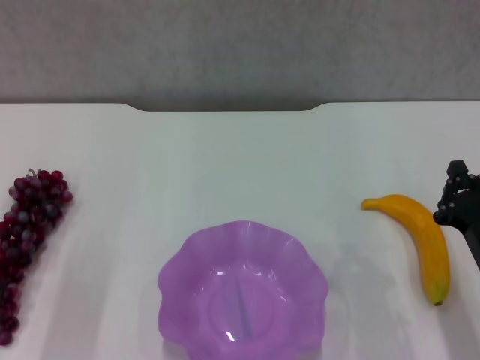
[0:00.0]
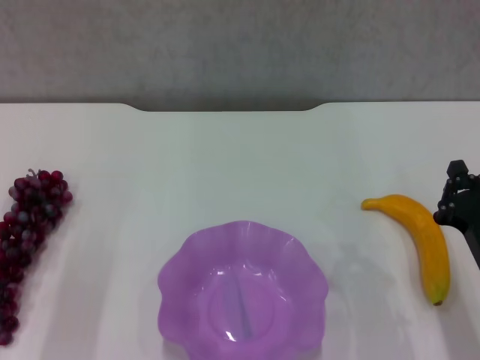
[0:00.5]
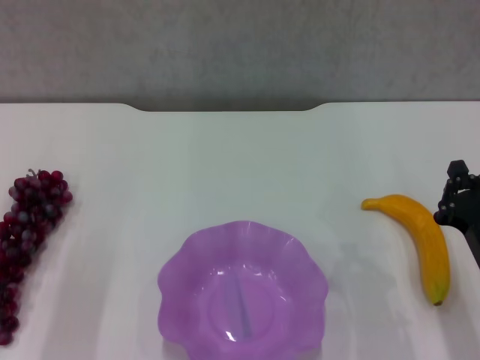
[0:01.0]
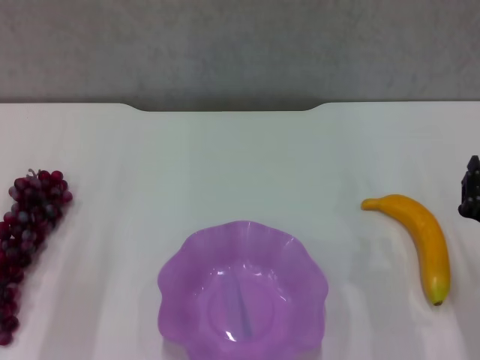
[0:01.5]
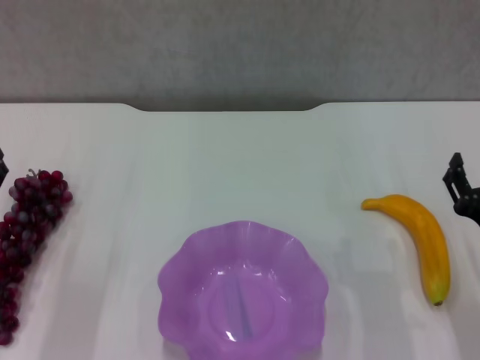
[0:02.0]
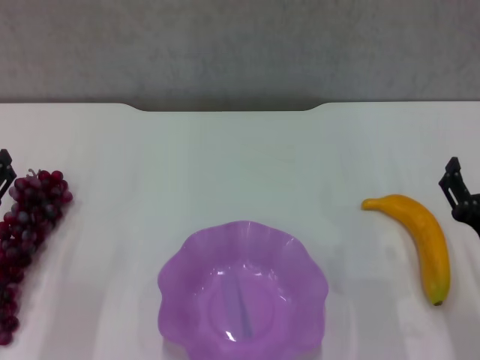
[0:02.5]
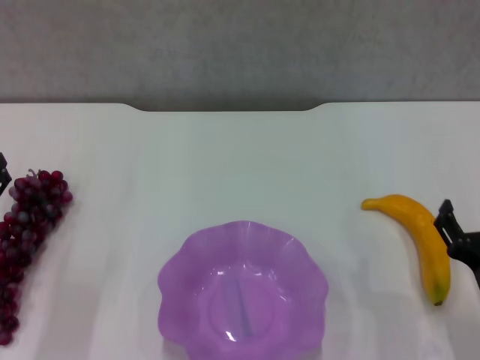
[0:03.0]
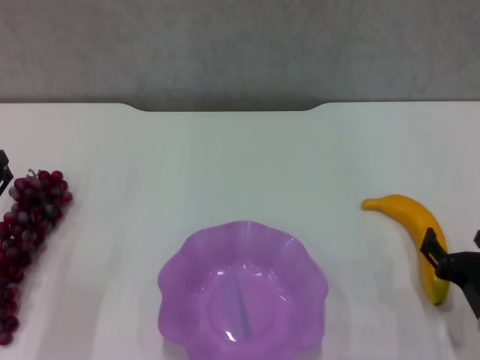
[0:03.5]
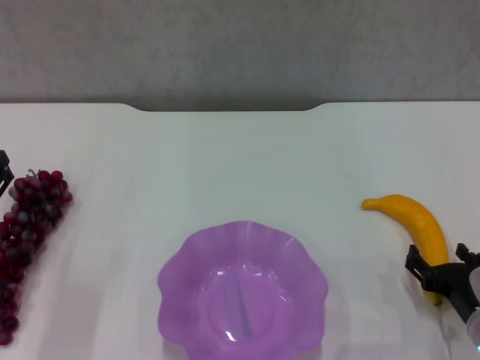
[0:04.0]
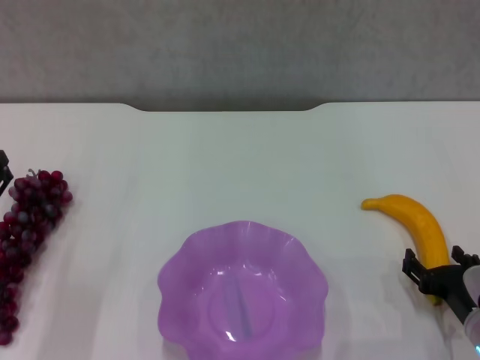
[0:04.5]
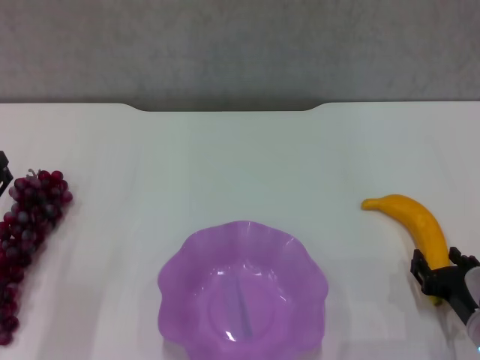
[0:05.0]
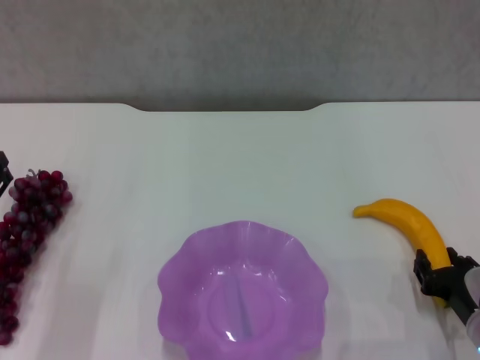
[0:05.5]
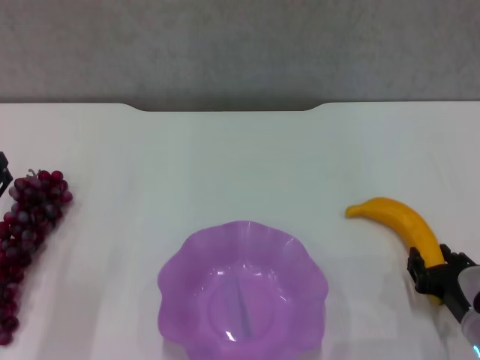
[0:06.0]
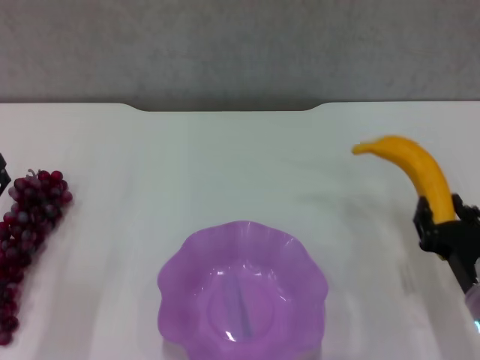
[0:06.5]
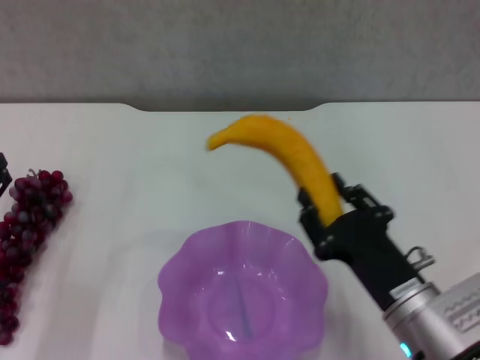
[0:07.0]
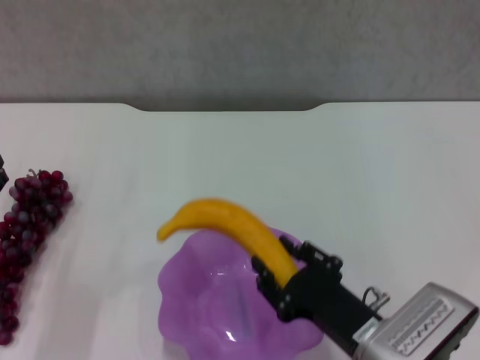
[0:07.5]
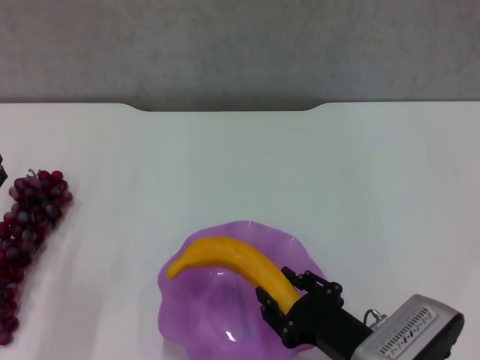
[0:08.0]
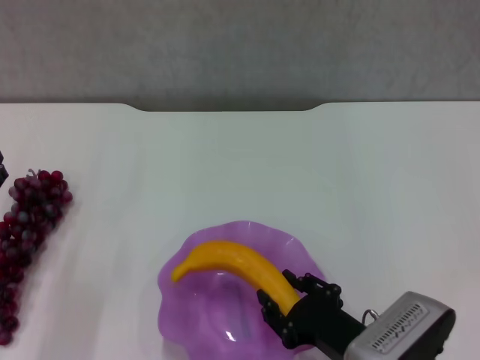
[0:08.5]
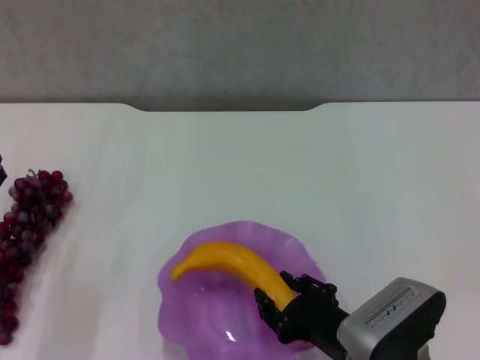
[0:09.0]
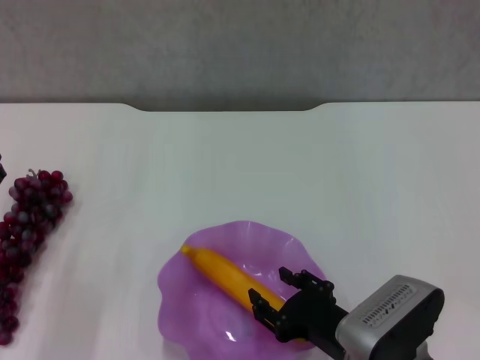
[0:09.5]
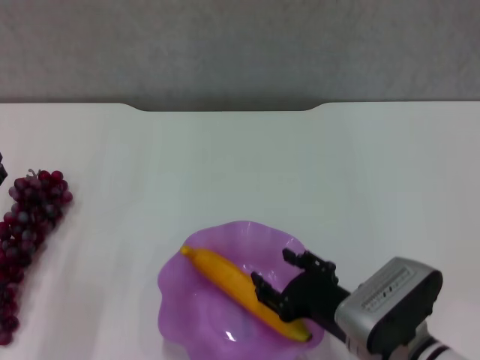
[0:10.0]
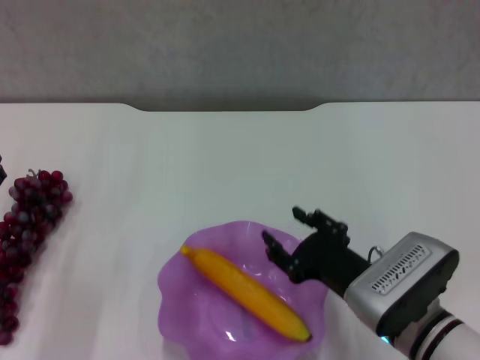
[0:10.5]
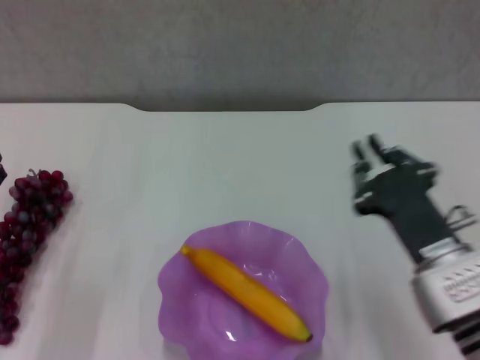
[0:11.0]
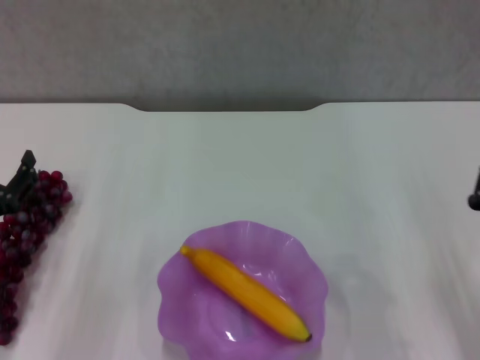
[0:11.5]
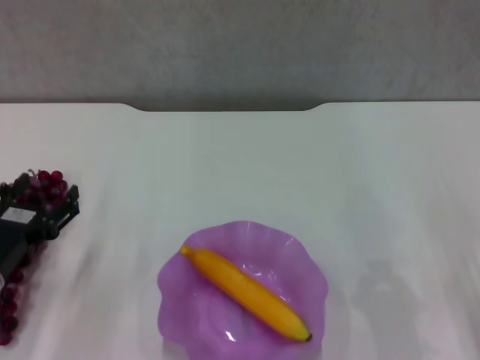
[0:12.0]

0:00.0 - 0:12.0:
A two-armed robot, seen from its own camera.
Step, 0:01.5 - 0:05.5: Grasp the banana with right gripper.
Step, 0:06.0 - 0:09.5: Place the banana in the purple plate with right gripper.
0:00.0 - 0:02.0: The right gripper opens up.
0:02.0 - 0:04.0: The right gripper shifts about 5 cm downward.
0:04.0 - 0:06.0: The right gripper closes its fingers.
0:06.0 - 0:08.0: The right gripper heads to the left, covering about 10 cm.
0:08.0 - 0:10.0: There are only small adjustments of the grippers.
0:10.0 - 0:12.0: The right gripper heads to the right, covering about 15 cm, and closes.

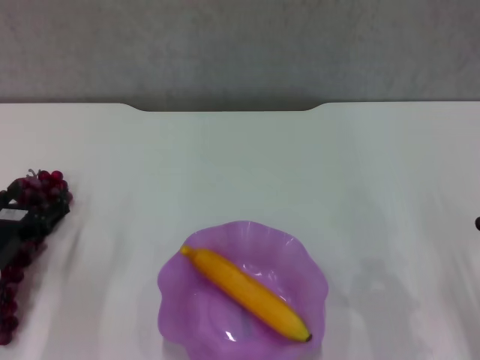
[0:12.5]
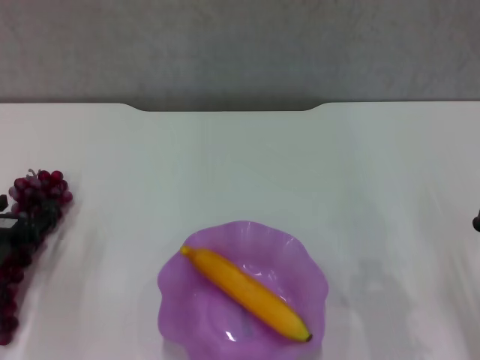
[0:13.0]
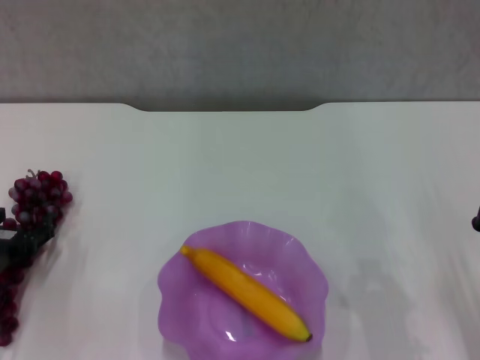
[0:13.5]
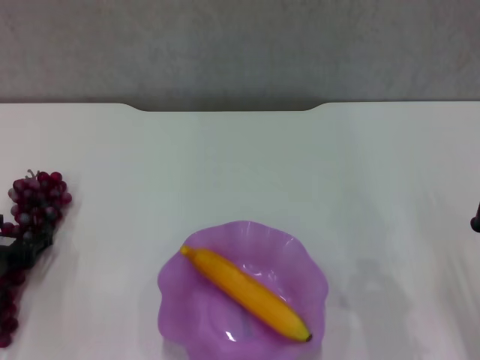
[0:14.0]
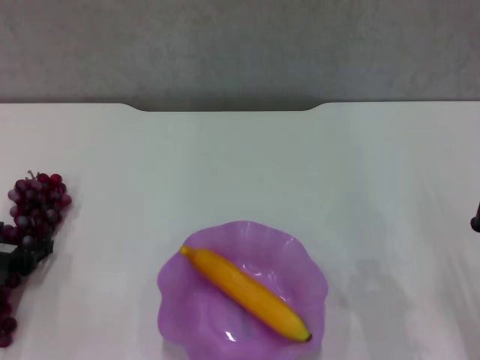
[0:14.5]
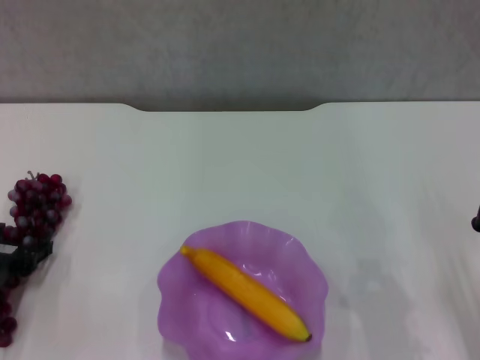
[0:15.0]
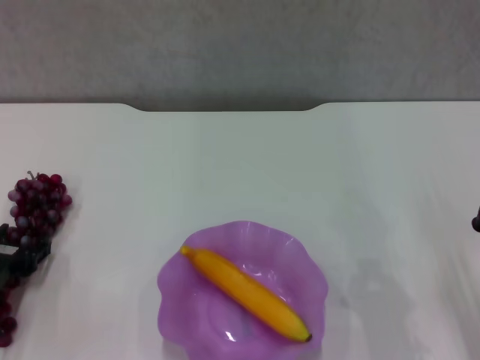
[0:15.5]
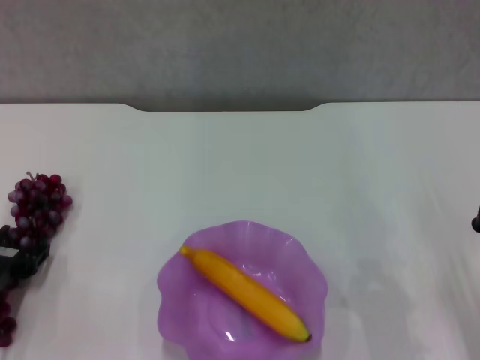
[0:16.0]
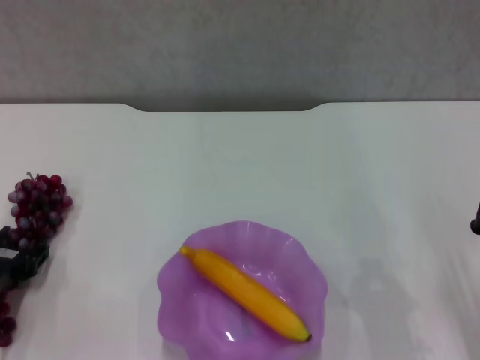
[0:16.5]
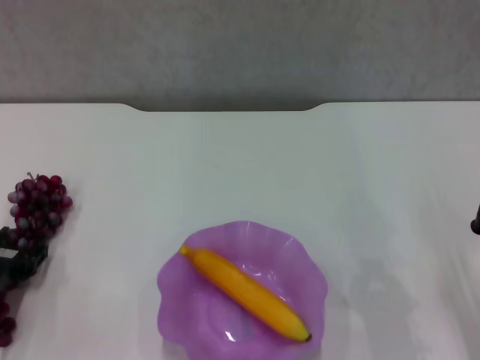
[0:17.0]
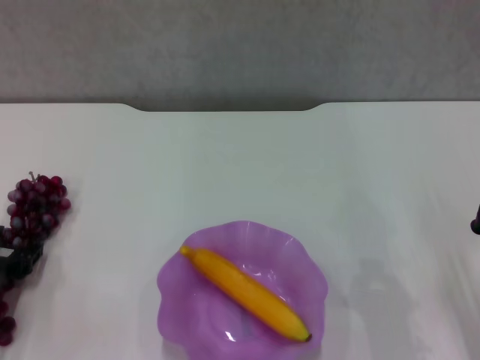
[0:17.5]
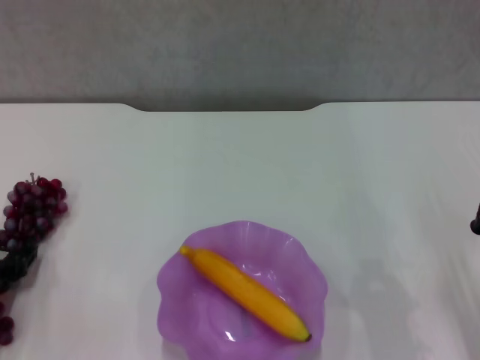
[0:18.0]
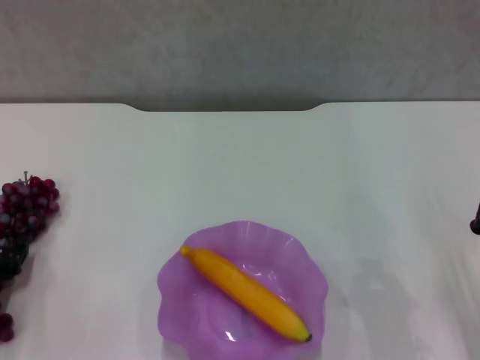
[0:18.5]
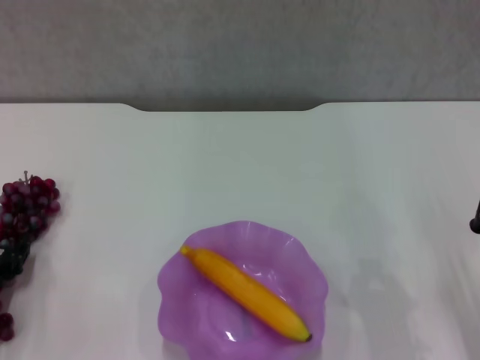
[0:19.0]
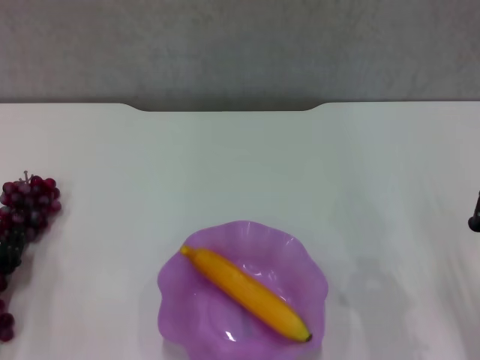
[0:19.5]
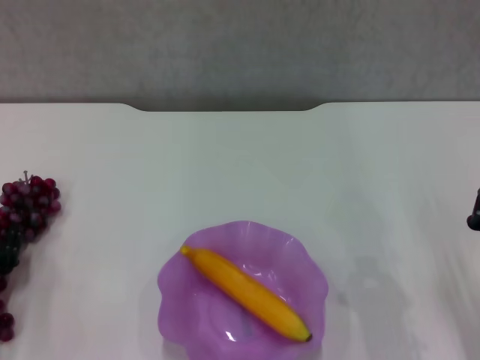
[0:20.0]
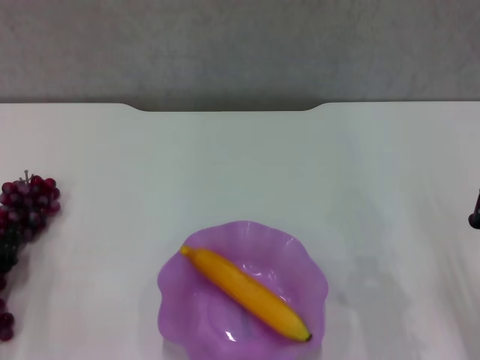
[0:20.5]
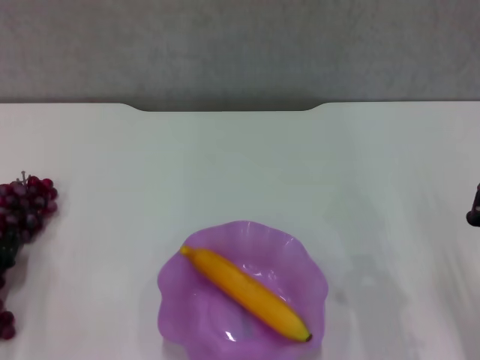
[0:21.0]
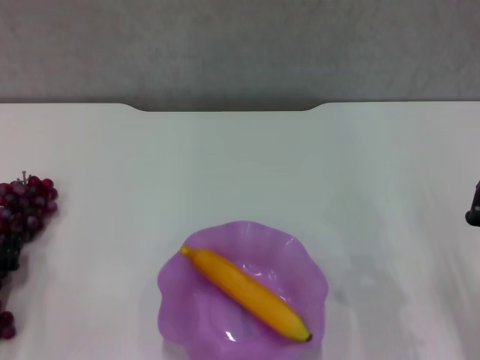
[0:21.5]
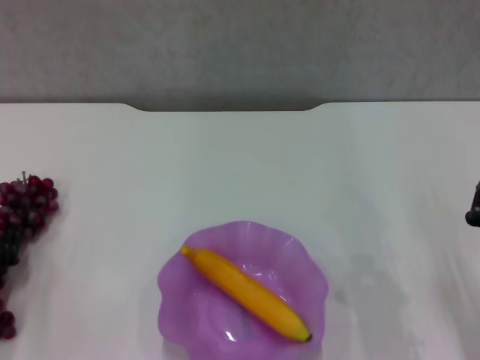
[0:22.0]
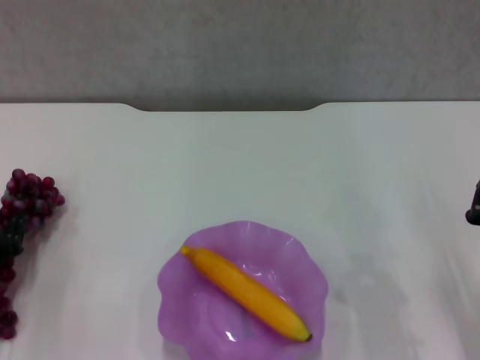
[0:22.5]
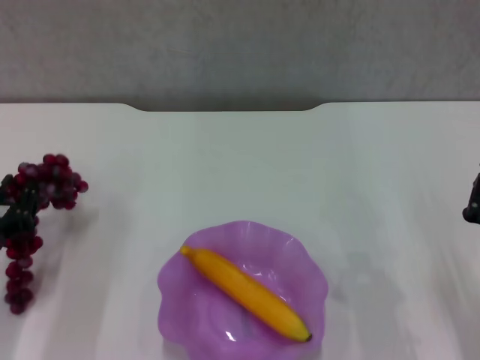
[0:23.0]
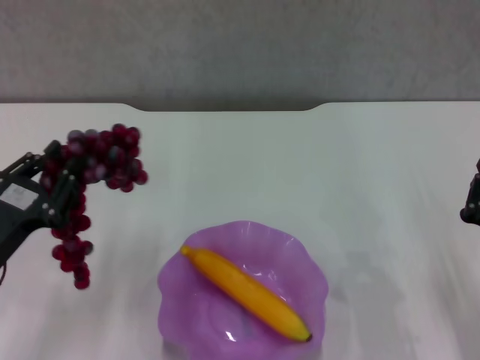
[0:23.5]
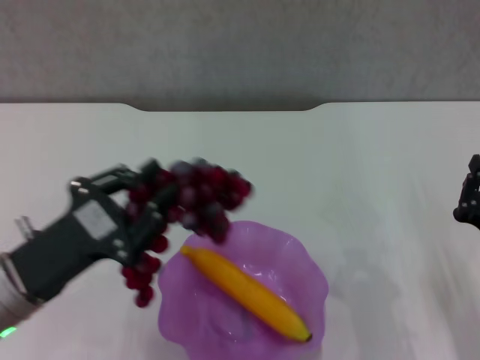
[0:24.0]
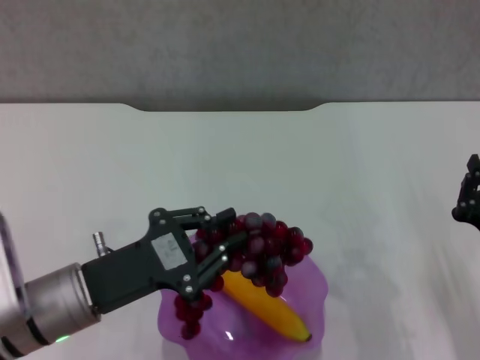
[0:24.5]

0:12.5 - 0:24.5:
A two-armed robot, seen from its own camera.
Step, 0:12.5 - 0:16.5: Grasp the grape with left gripper.
0:12.5 - 0:14.5: There are only small adjustments of the grippers.
0:14.5 - 0:16.5: Neither gripper changes place.
0:16.5 - 0:18.5: The grippers move only a little.
0:18.5 - 0:20.5: Neither gripper changes place.
0:20.5 - 0:22.5: The grippers stay close to where they were, moving slightly.
0:22.5 - 0:24.5: The left gripper goes some 15 cm to the right and upward.

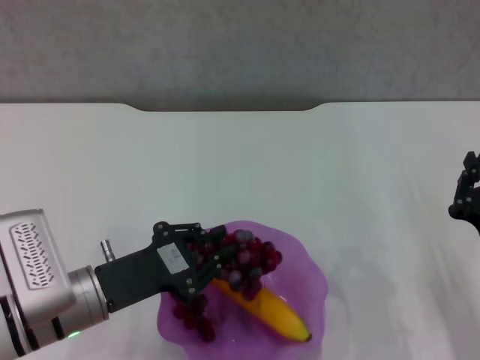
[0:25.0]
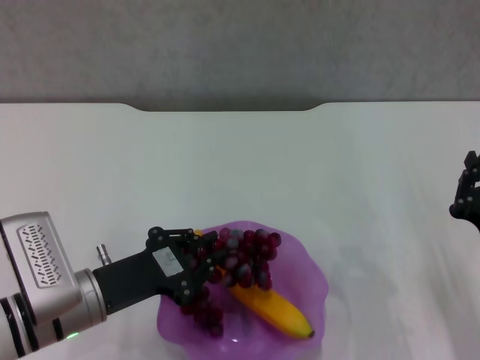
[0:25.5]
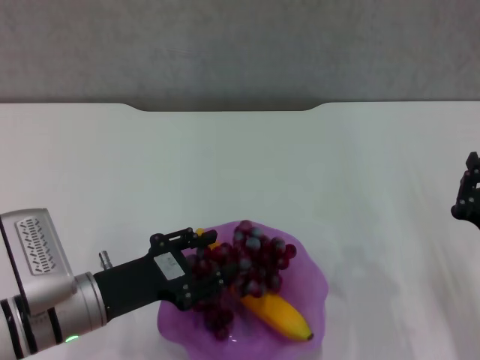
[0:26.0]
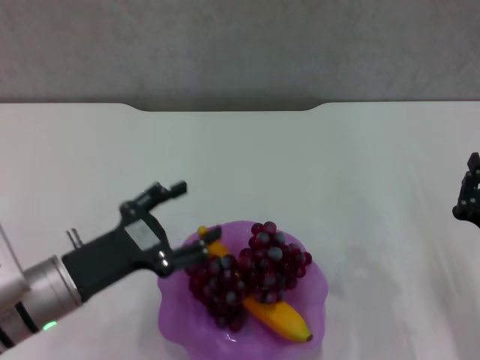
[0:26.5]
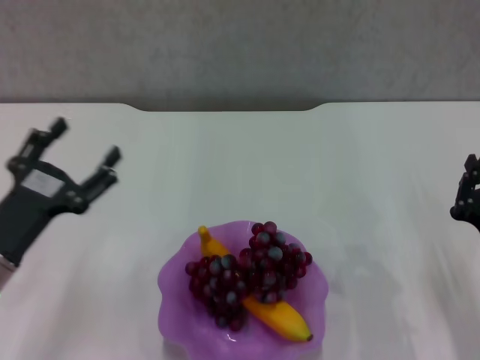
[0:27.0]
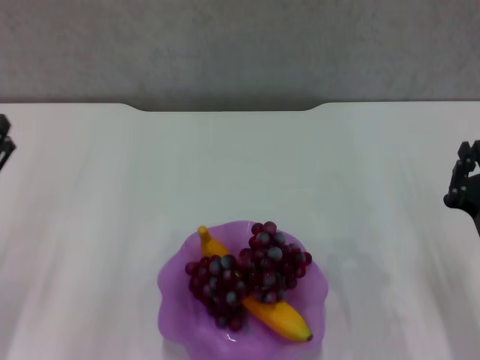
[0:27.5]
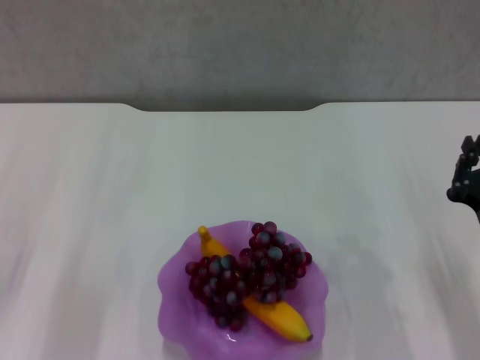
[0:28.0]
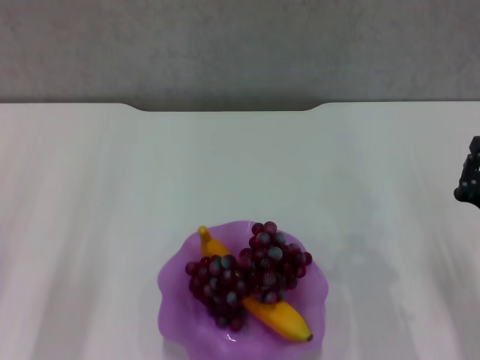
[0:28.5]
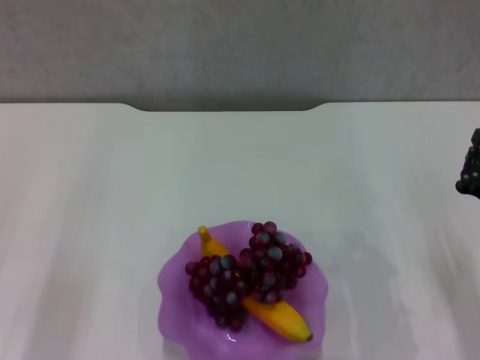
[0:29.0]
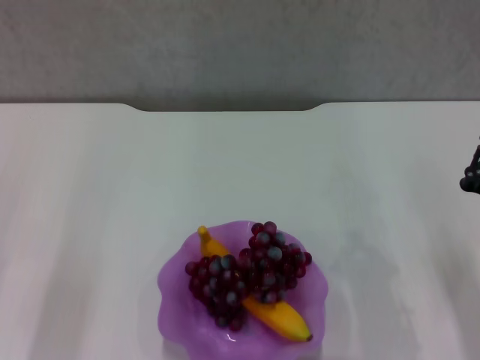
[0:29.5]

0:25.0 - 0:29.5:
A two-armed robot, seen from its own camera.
0:25.0 - 0:27.0: The left gripper travels to the left by some 5 cm, and opens up.
0:27.0 - 0:29.5: The left gripper goes about 5 cm to the left, and closes its fingers.
